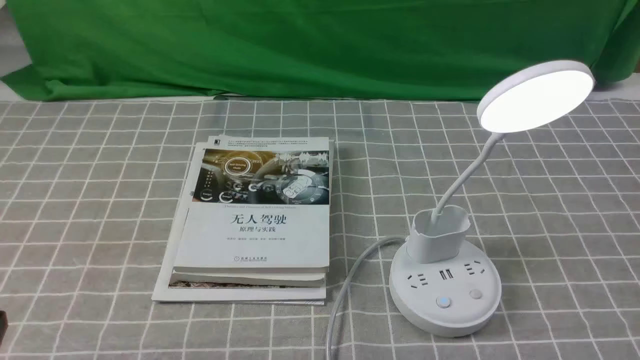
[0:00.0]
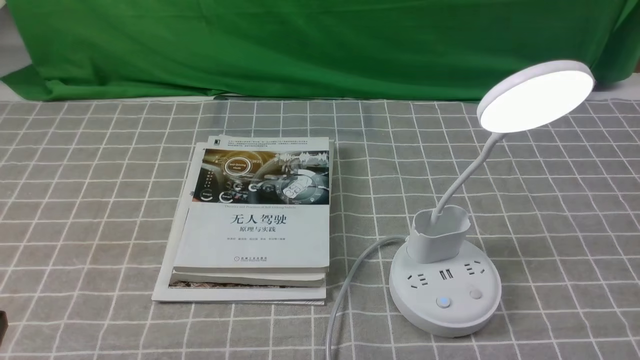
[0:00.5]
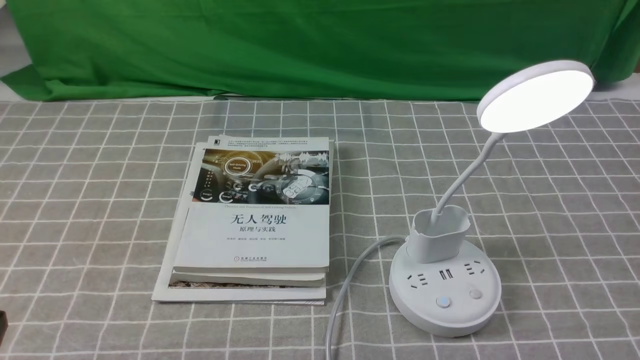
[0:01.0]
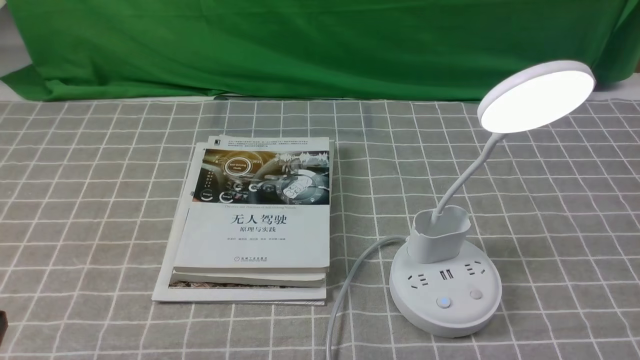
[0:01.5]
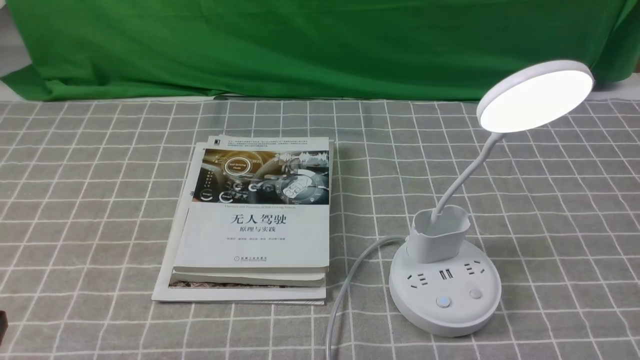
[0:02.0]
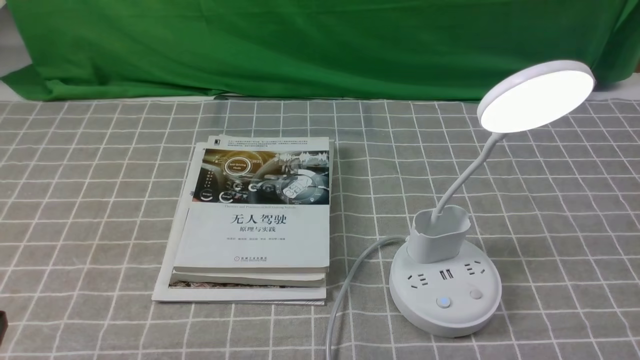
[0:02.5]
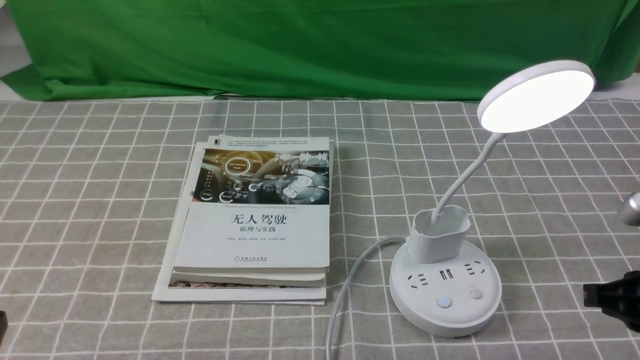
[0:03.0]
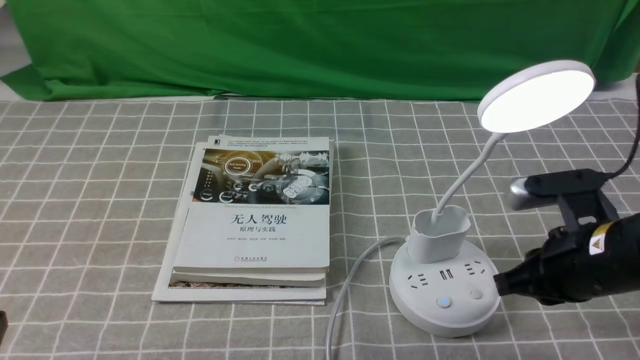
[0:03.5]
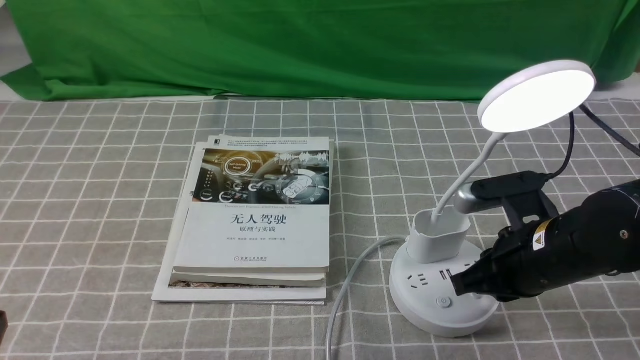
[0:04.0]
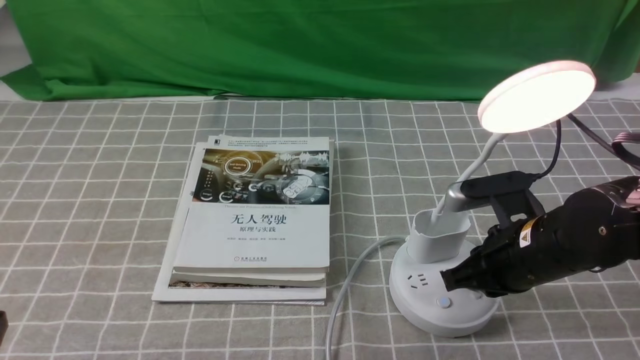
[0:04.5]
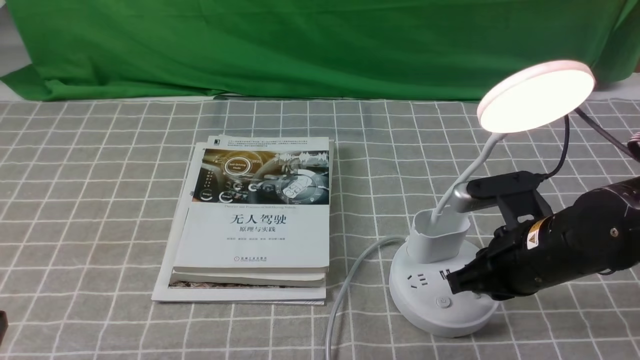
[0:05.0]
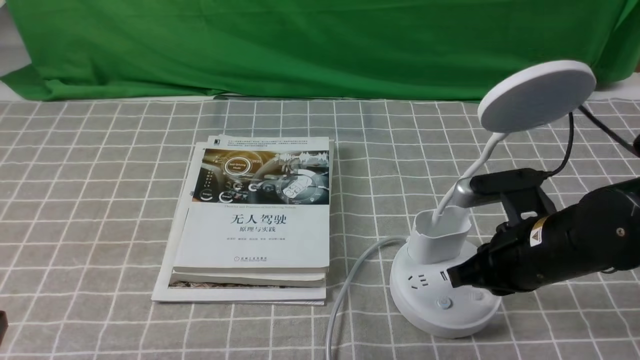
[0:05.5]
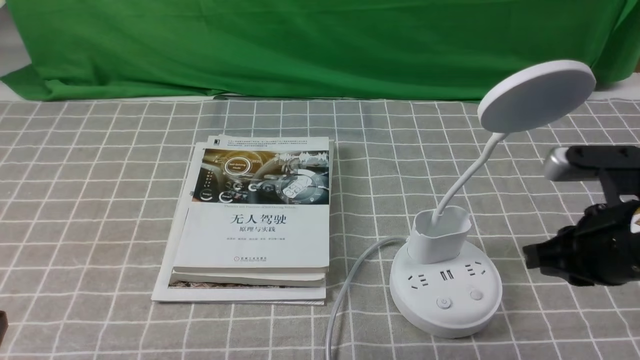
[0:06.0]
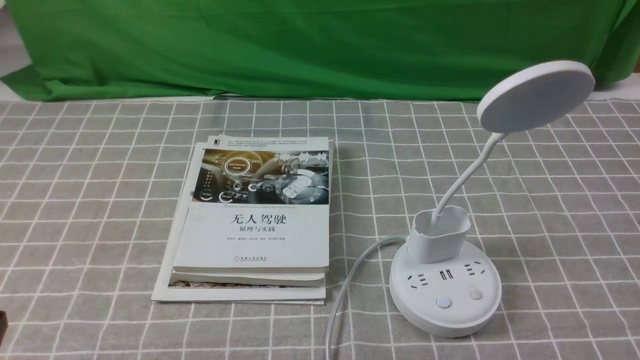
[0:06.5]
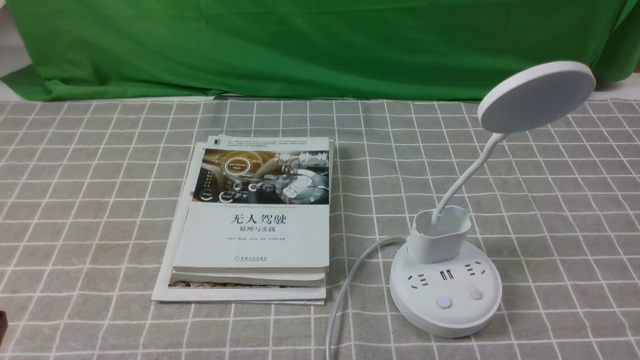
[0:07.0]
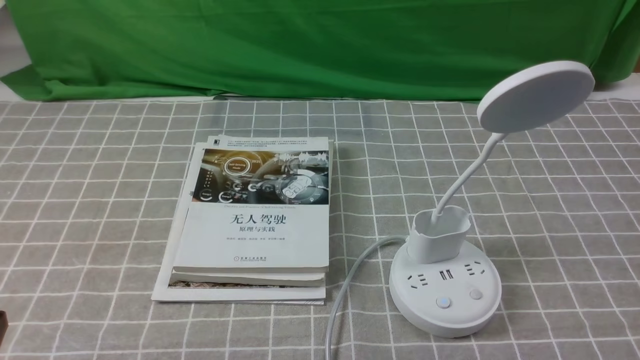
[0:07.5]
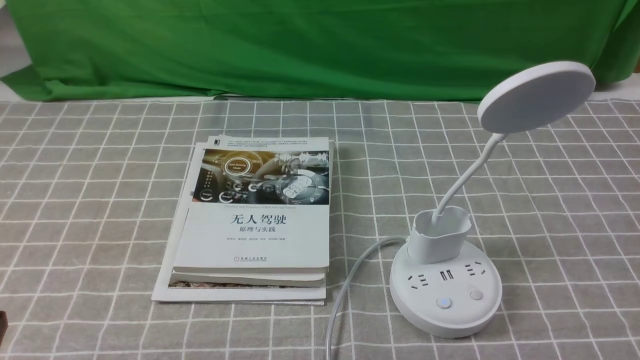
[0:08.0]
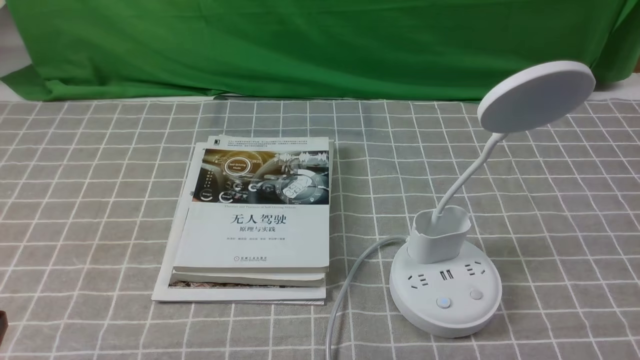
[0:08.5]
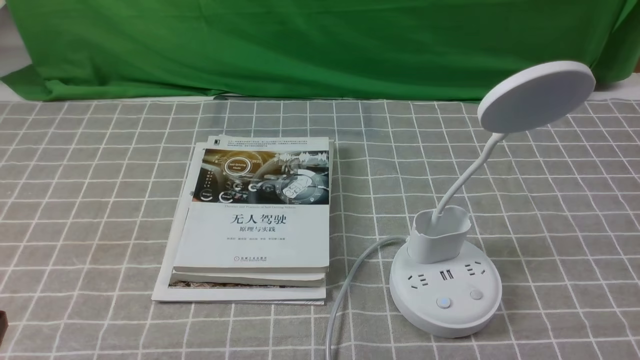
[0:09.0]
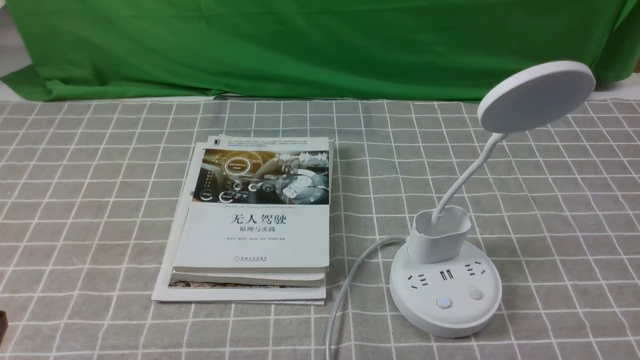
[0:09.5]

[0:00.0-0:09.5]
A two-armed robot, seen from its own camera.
Task of the whole recording: turn off the desk lamp on the grey coffee tablecloth by hand.
Step, 0:00.0 to 0:05.5: use the right arm to press the button switch on the lamp holder.
0:02.0 to 0:04.0: The right gripper moves forward, to the left and downward, some 25 cm, and closes up.
0:04.0 to 0:05.5: Both grippers stay put.
0:05.5 to 0:07.5: The right gripper heads backward and to the right, covering about 25 cm.
